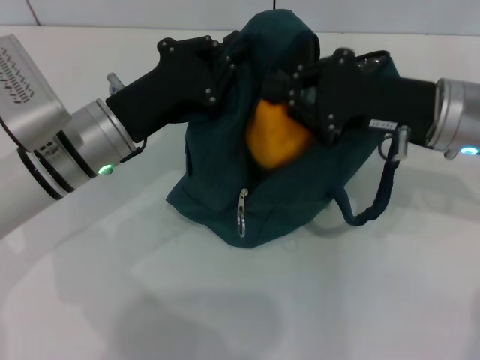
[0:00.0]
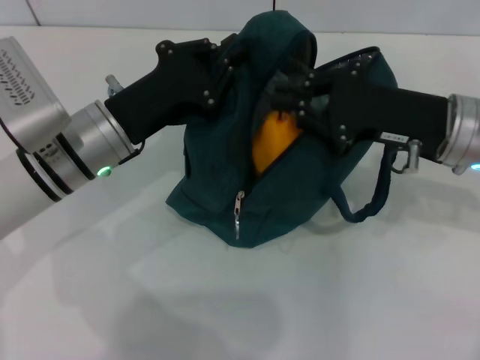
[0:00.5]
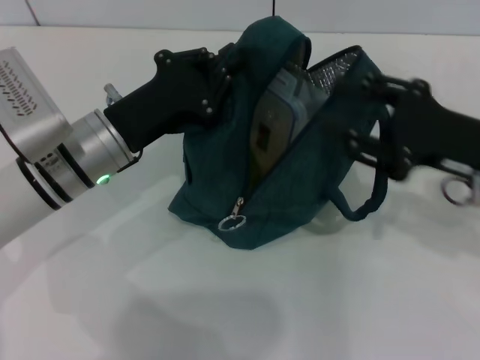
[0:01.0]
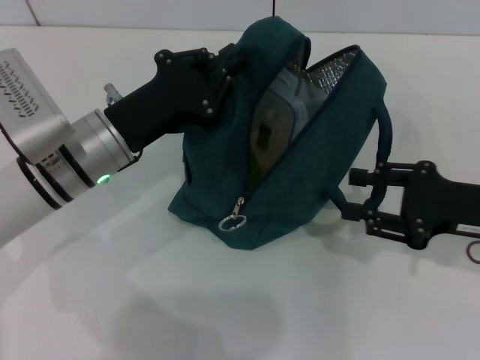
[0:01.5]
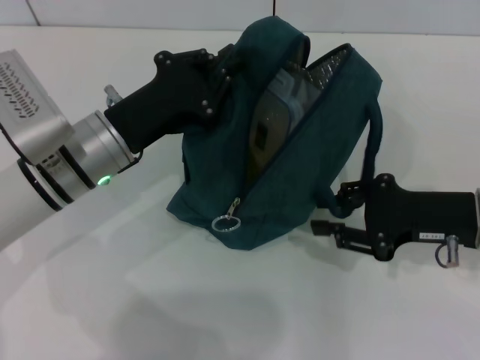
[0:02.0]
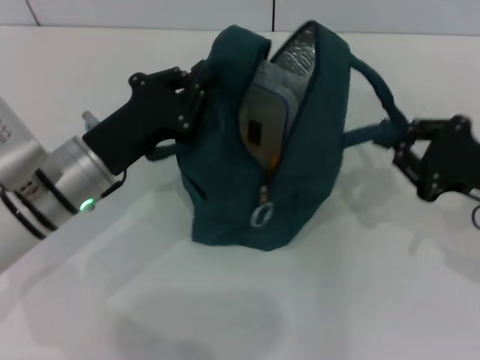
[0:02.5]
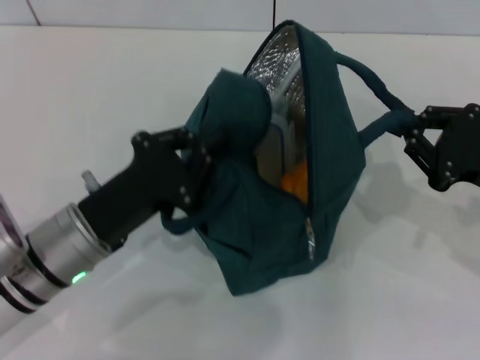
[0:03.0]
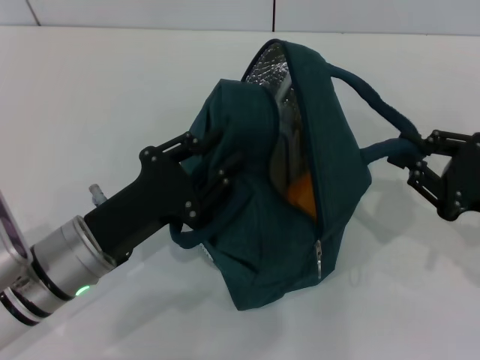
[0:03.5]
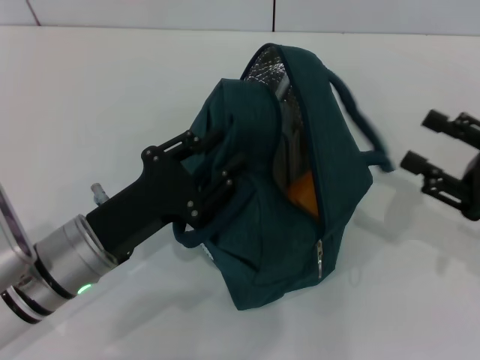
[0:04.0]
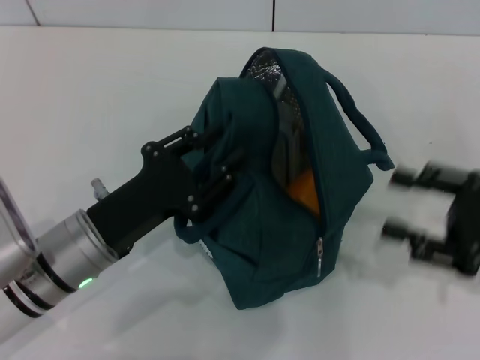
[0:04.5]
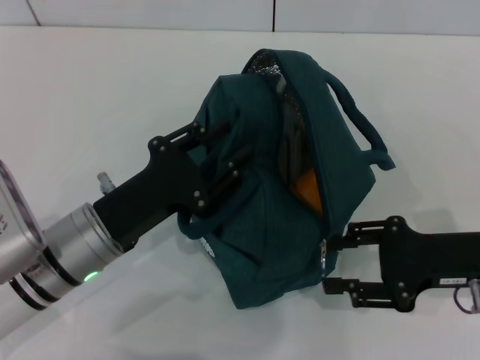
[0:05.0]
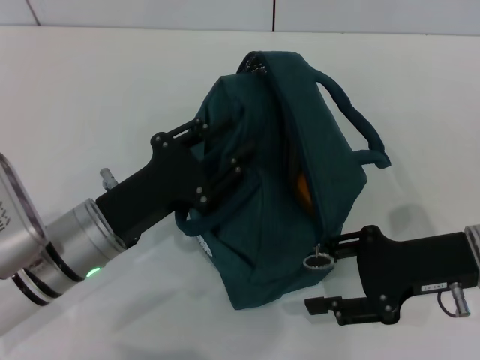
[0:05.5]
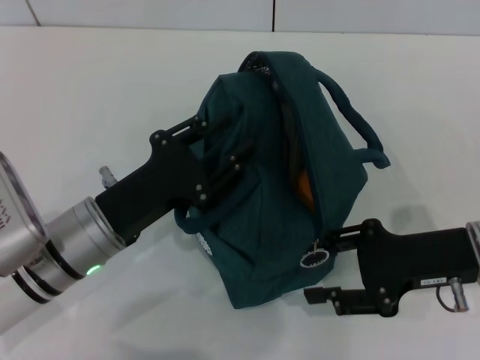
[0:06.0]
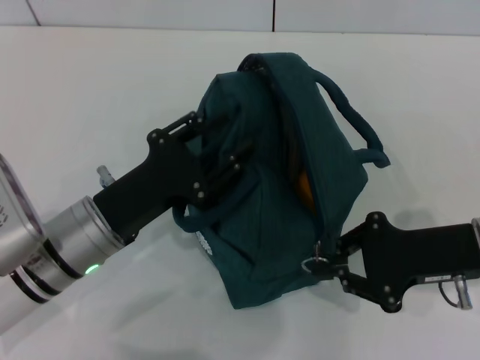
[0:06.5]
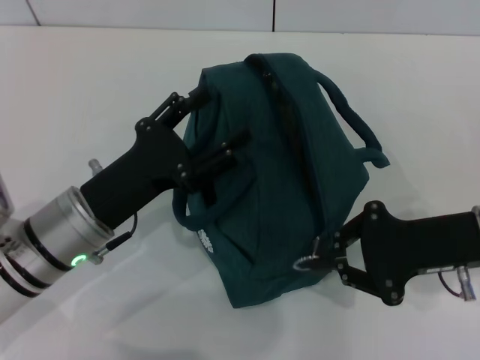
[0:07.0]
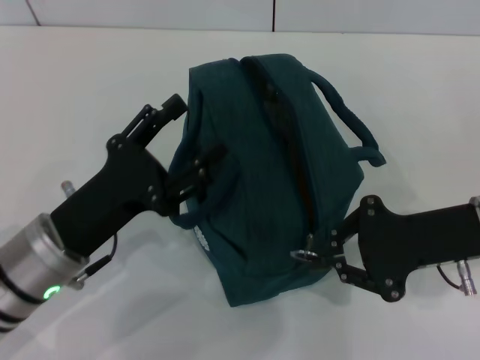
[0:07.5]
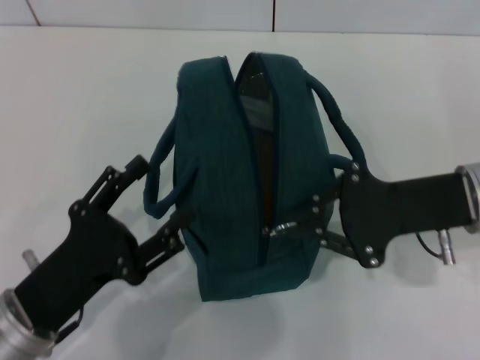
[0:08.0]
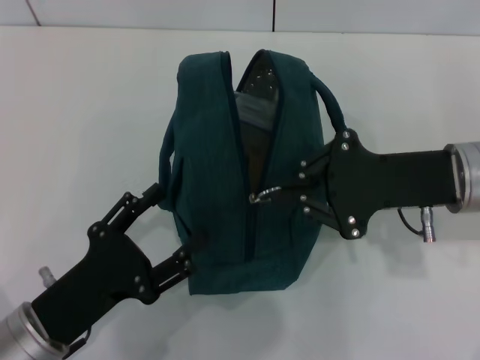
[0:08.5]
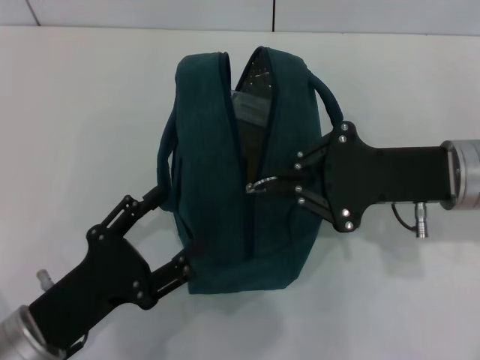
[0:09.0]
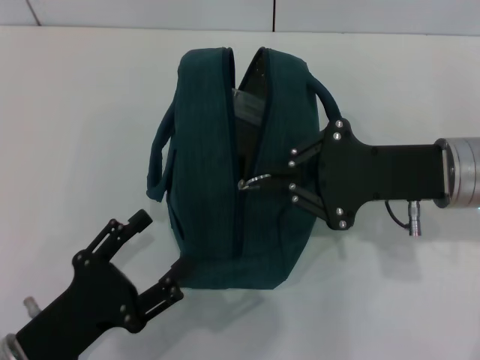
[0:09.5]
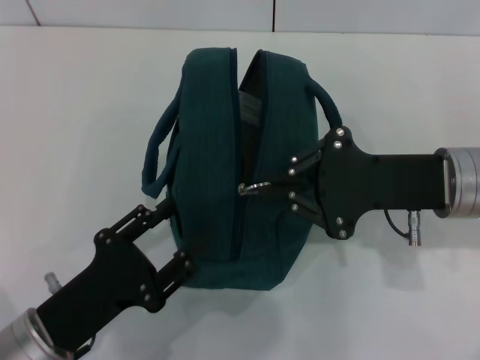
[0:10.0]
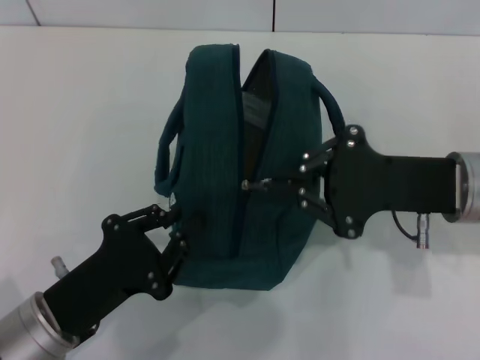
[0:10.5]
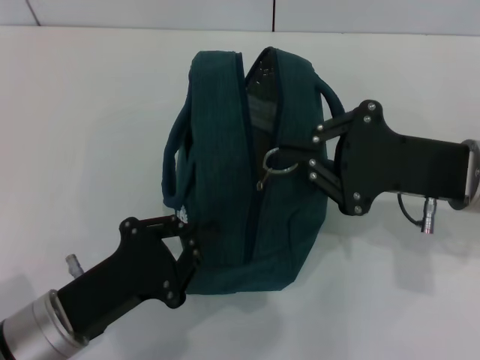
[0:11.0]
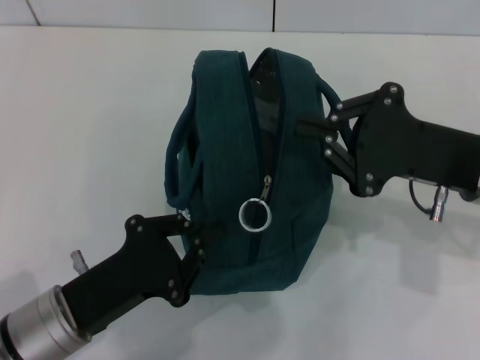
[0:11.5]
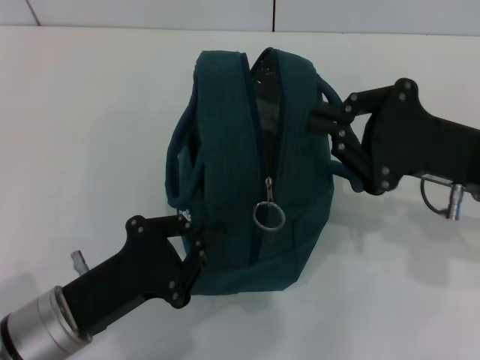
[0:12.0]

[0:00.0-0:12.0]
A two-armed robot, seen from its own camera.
Step, 0:01.0 to 0:03.5: Hold the lunch bag with your right hand.
Step, 0:04.0 to 0:07.5: Hold the lunch bag with your left hand.
0:00.0 to 0:02.0: The right gripper shifts approximately 10 cm downward, to the right and backward, and opens up.
0:02.0 to 0:04.0: The right gripper heads to the right, covering about 5 cm, and closes, then reopens; the left gripper heads backward, covering approximately 10 cm, and opens.
0:04.0 to 0:06.0: The right gripper heads to the left, covering roughly 10 cm.
0:06.0 to 0:08.0: The right gripper shifts by approximately 5 cm, and closes, while the left gripper moves backward, some 10 cm, and opens up.
0:10.0 to 0:12.0: The left gripper closes up.

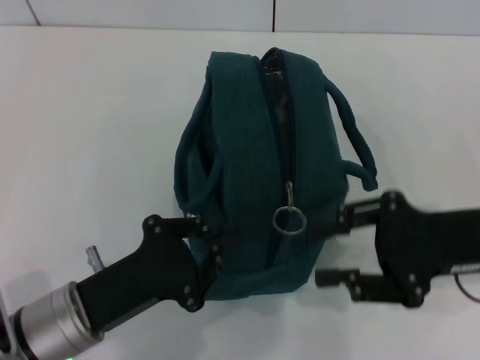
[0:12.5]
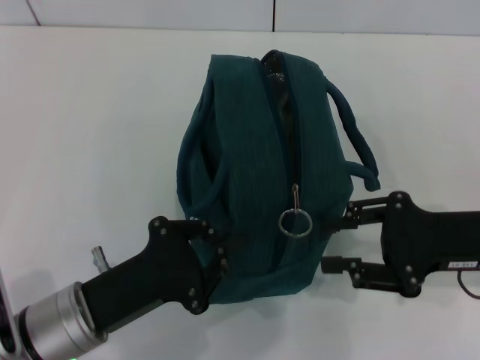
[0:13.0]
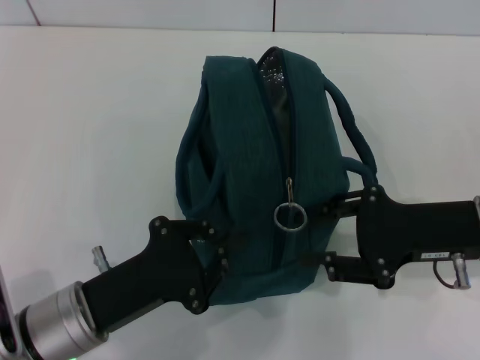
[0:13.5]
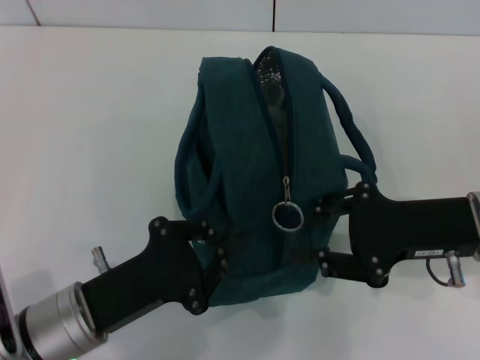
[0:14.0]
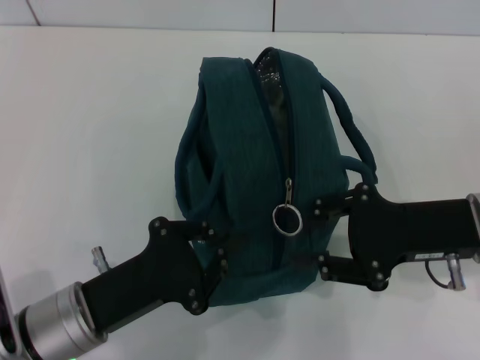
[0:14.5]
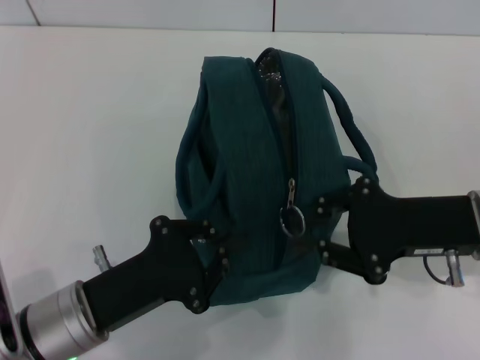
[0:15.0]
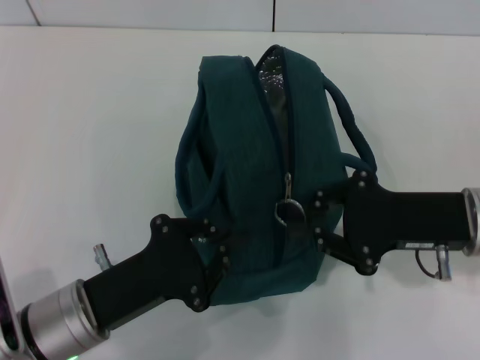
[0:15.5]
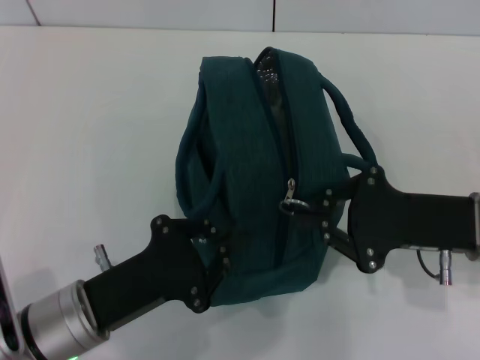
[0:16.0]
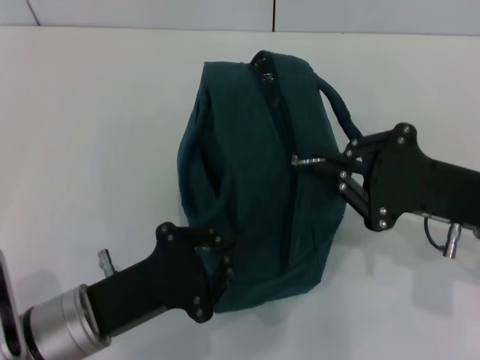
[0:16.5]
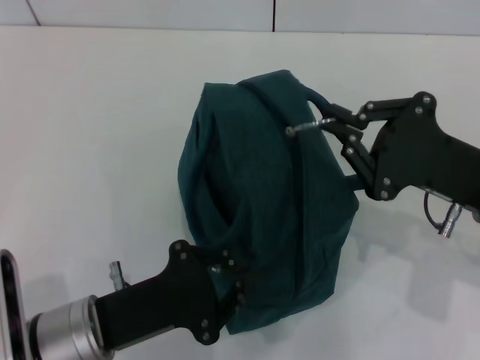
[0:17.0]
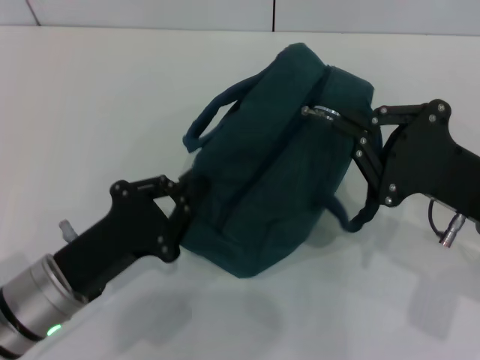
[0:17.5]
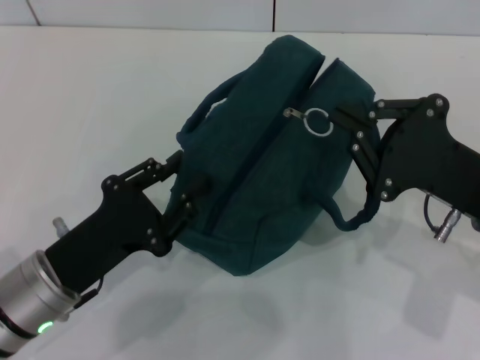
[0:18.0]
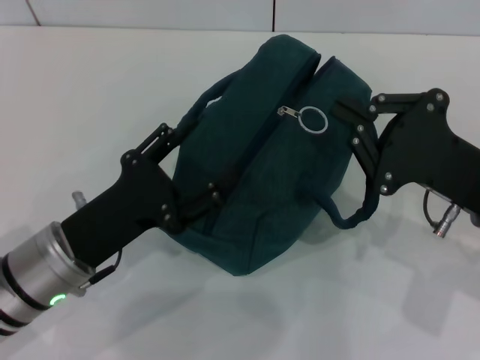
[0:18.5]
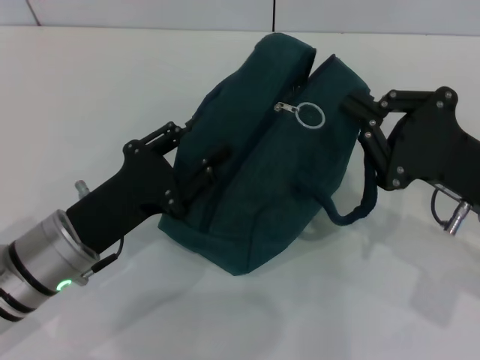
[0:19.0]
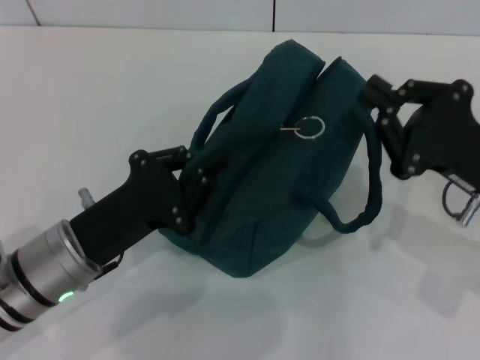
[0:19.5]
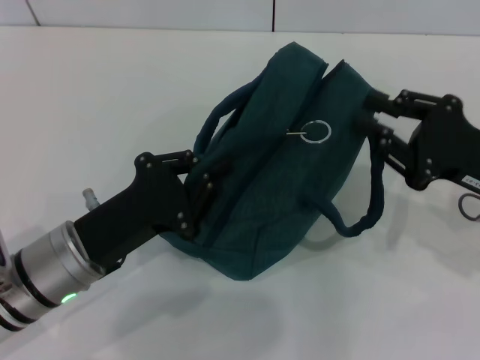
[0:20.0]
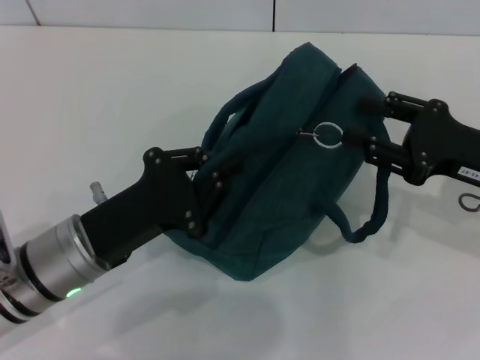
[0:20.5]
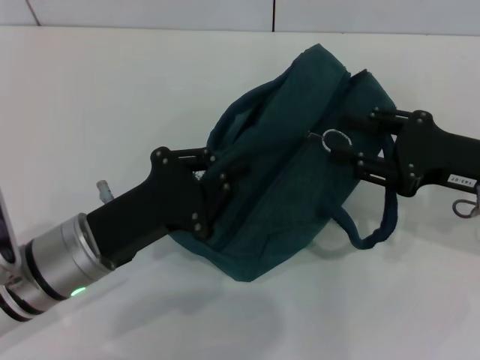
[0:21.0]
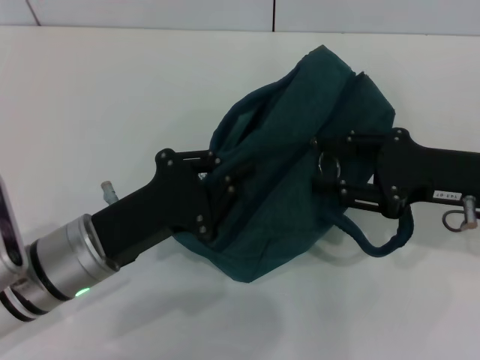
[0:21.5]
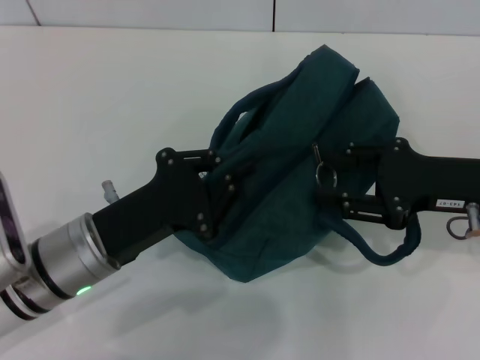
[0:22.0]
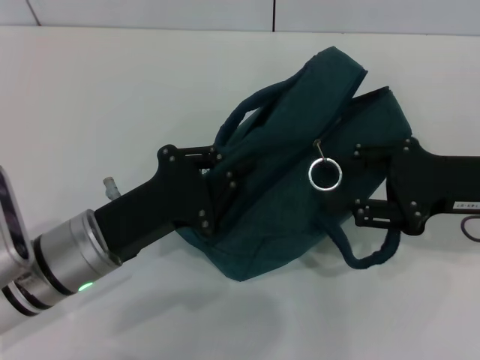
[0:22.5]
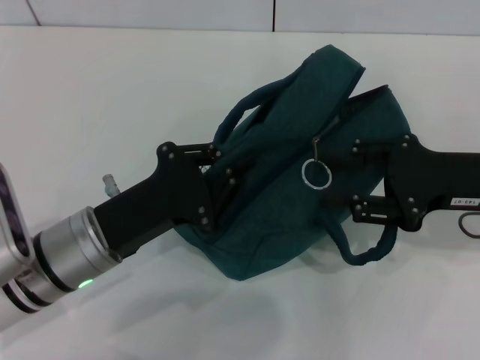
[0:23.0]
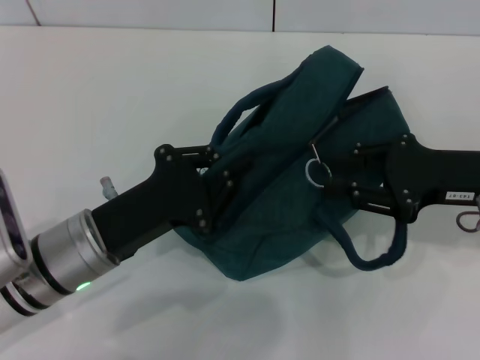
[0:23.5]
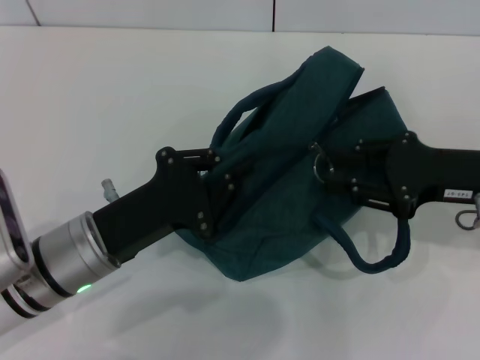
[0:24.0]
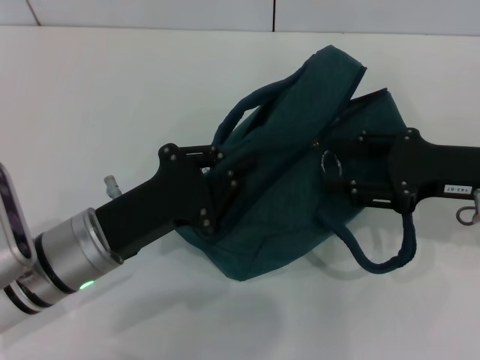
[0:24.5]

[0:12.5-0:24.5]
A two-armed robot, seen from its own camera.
0:12.5 to 0:14.5: There are only small adjustments of the grippers.
0:14.5 to 0:16.5: The right gripper closes up.
0:16.5 to 0:18.5: The left gripper opens up.
0:18.5 to 0:20.5: The left gripper closes up. Meanwhile the right gripper moves some 5 cm, and opens its fingers.
0:20.5 to 0:22.5: The grippers make only small movements.
0:22.5 to 0:24.5: The grippers make only small movements.

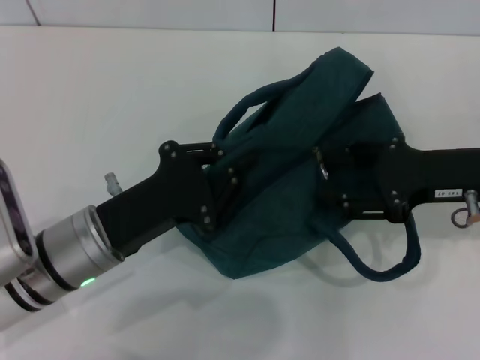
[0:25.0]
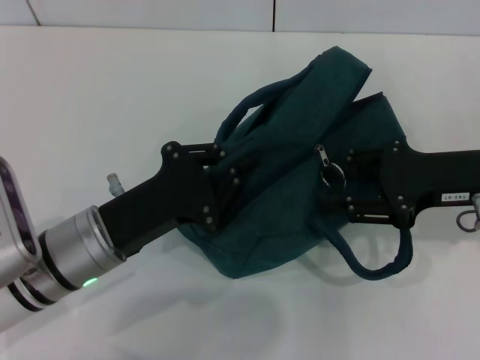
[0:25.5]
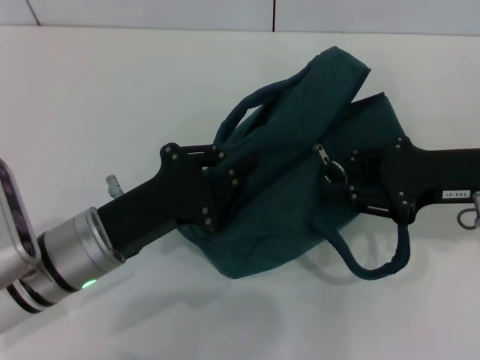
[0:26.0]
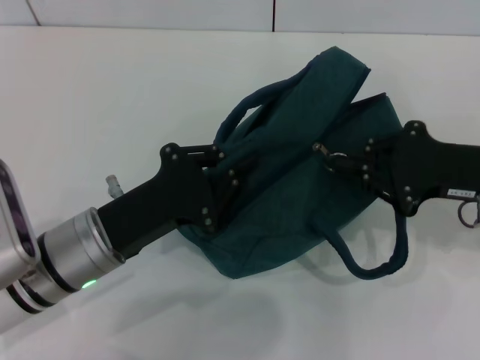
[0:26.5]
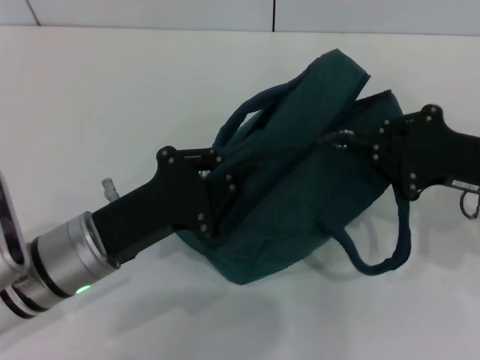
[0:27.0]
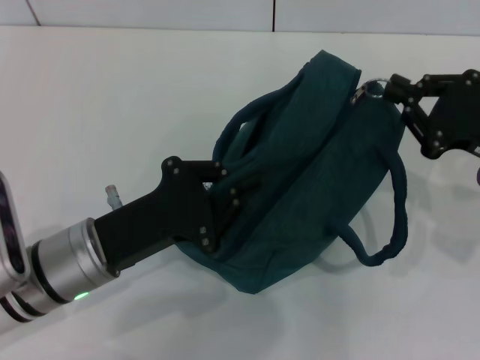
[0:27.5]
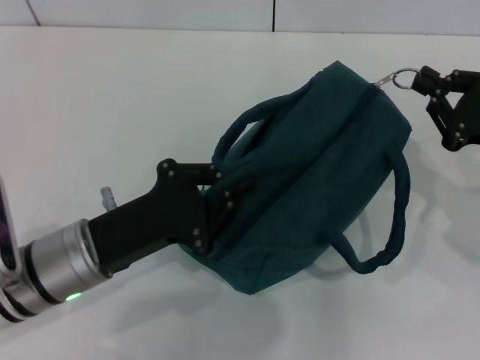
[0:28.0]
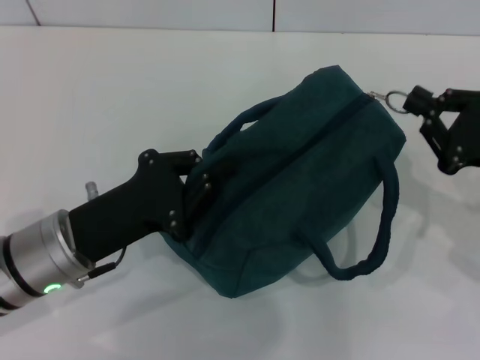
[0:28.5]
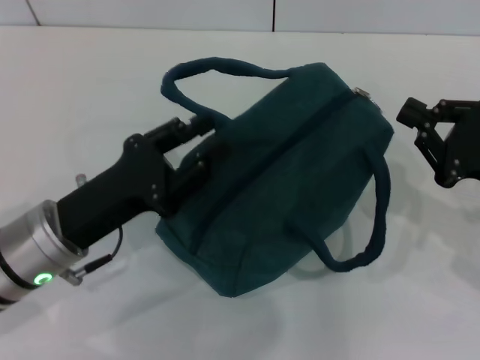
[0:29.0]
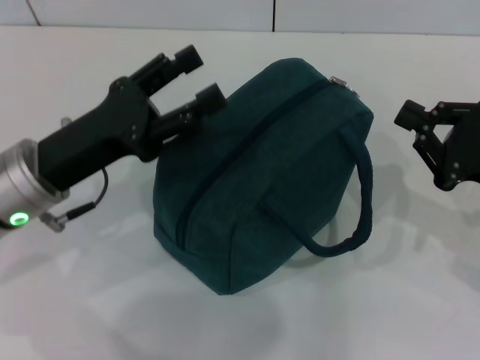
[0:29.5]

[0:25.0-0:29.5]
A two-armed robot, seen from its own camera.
0:25.0 to 0:27.0: The right gripper closes its fingers.
0:27.0 to 0:29.5: The left gripper moves approximately 5 cm, and opens.
